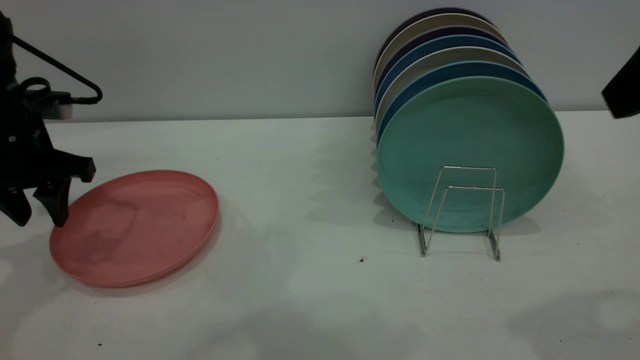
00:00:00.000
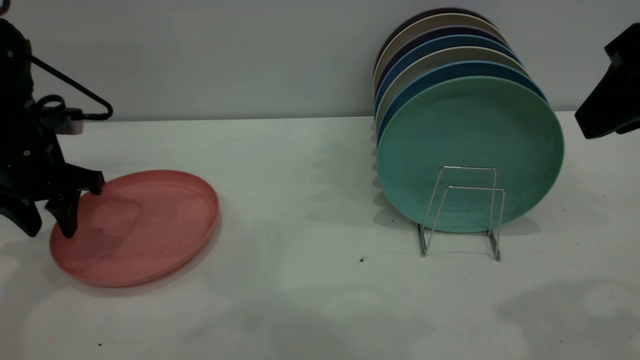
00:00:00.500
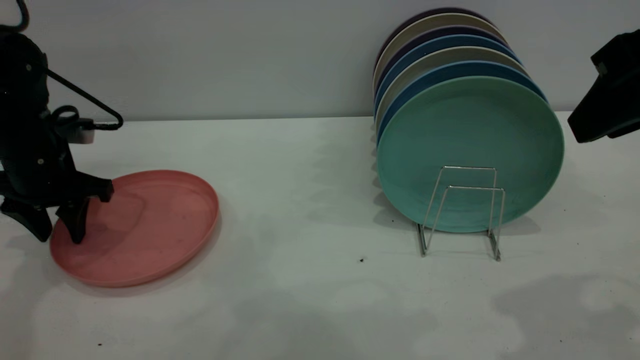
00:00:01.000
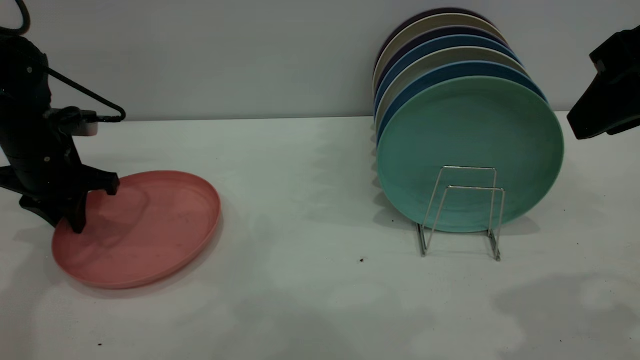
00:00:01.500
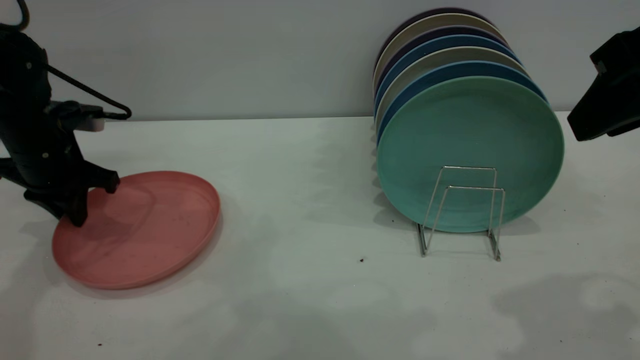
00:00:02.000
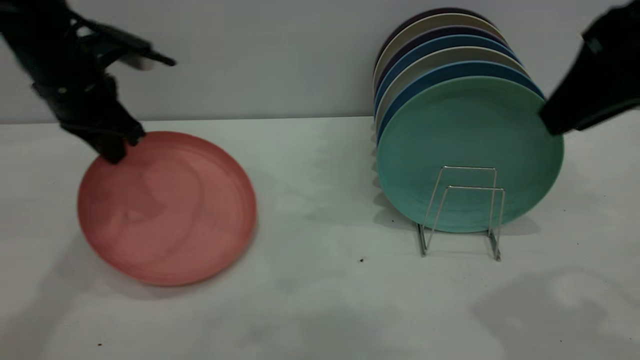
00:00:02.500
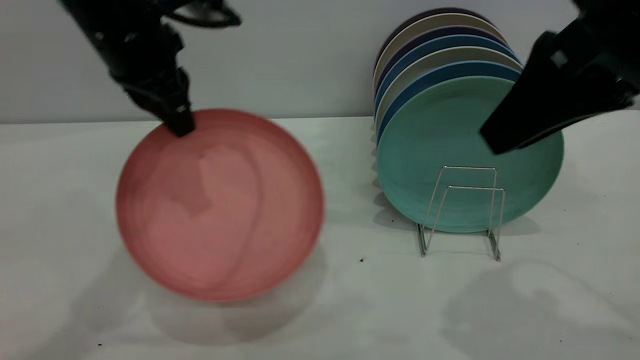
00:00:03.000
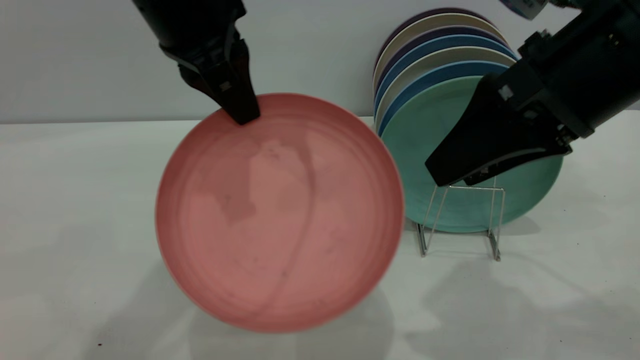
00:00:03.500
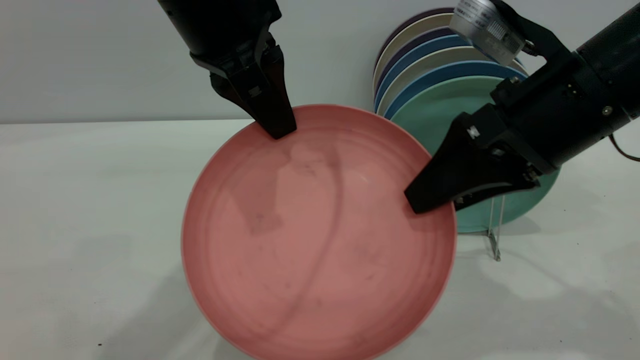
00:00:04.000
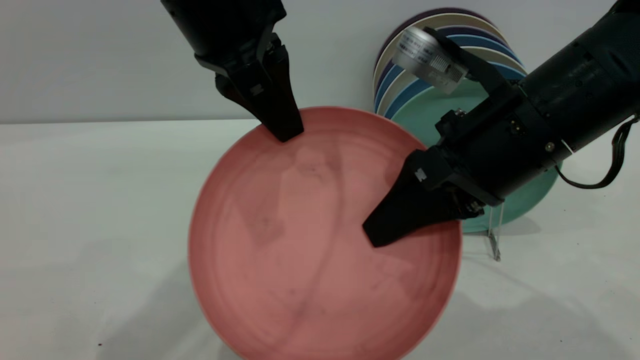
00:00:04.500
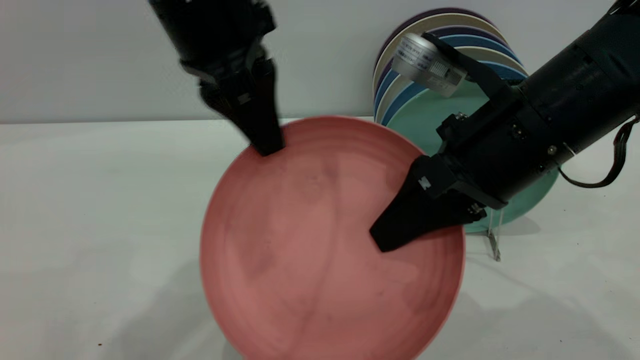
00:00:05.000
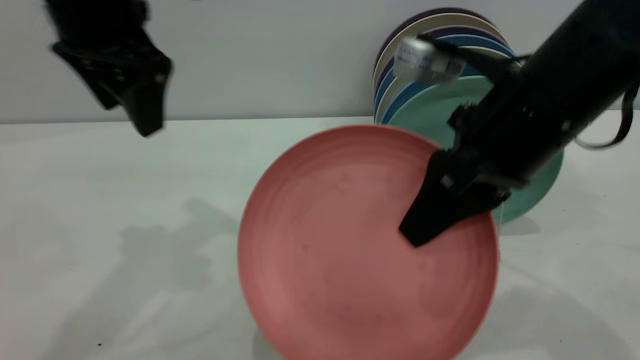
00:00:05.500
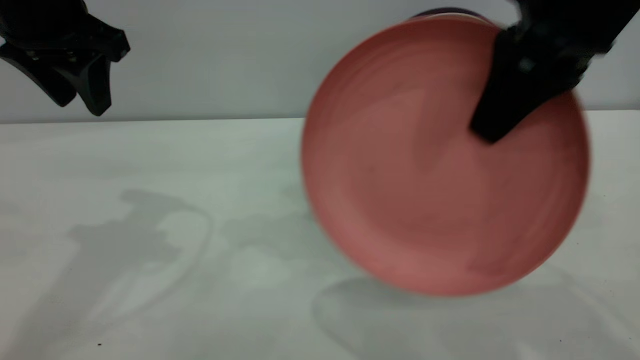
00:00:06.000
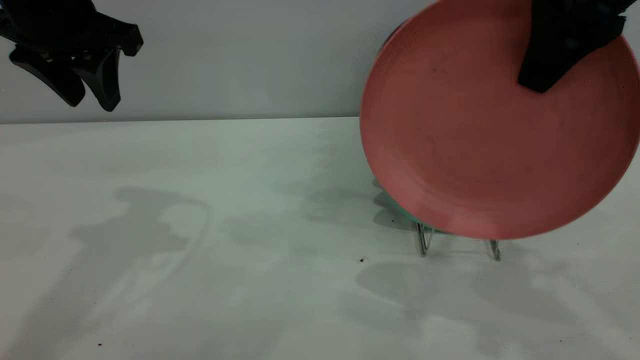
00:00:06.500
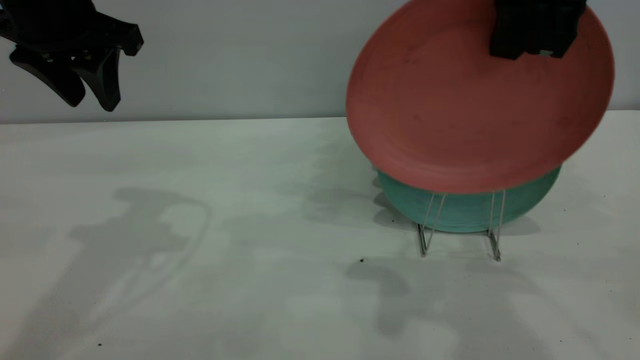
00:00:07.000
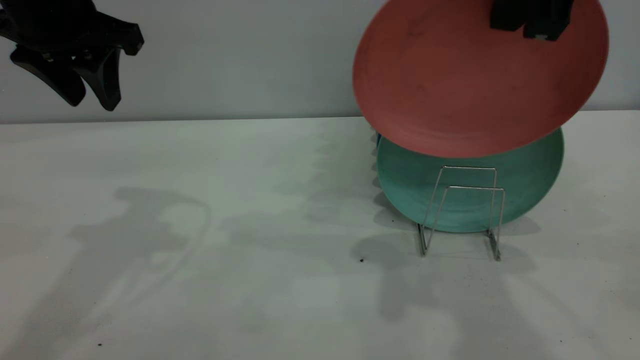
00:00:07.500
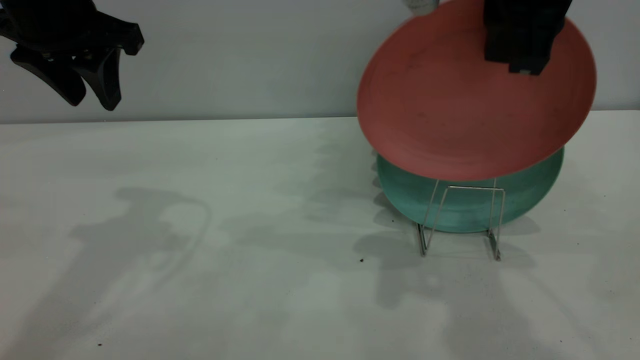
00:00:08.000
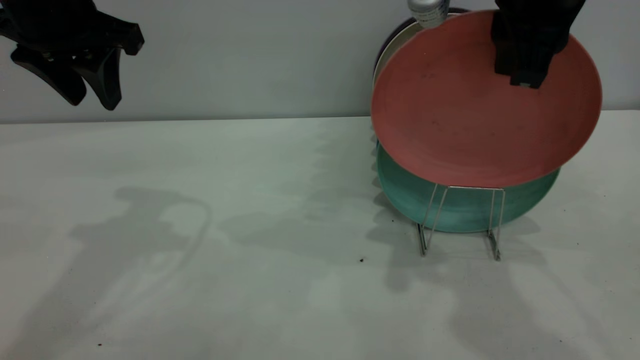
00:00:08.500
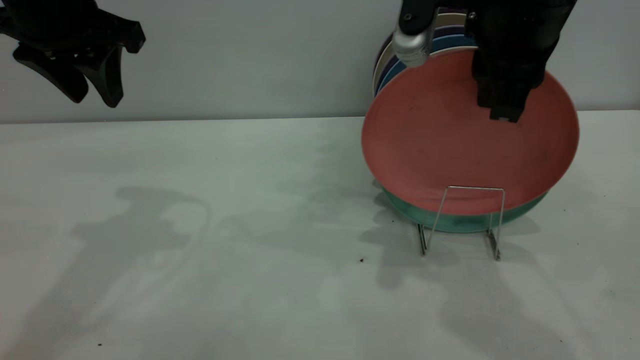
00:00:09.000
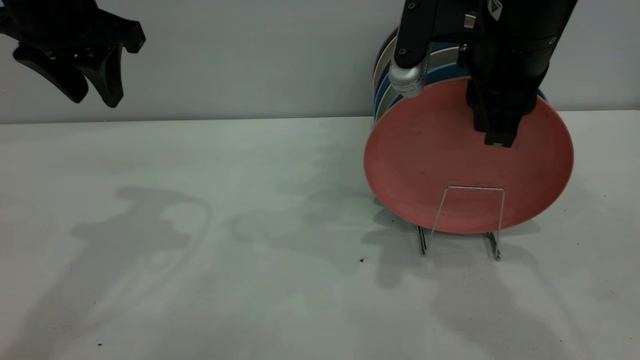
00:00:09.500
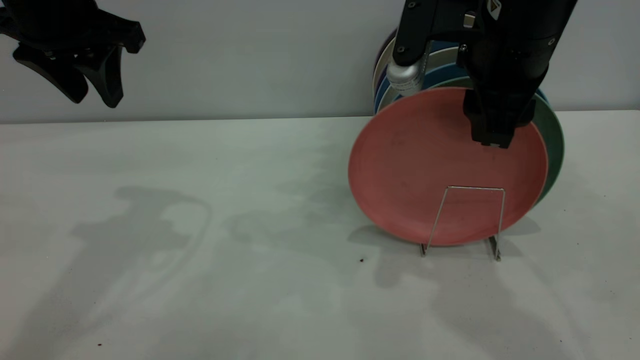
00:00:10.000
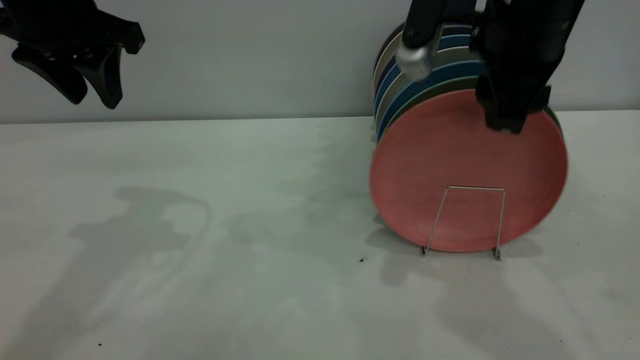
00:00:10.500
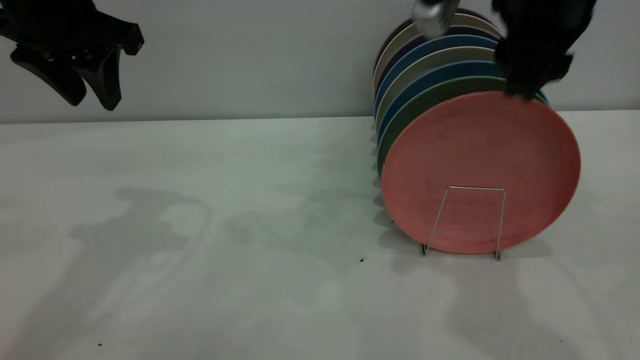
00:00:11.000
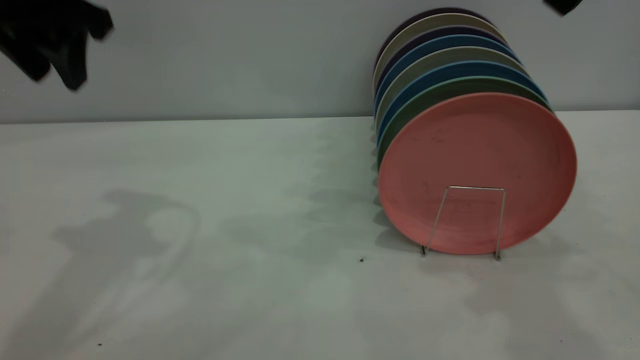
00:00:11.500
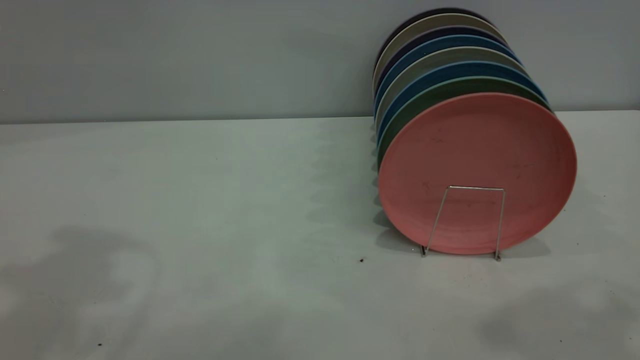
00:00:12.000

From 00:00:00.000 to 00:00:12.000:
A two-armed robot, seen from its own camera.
Task of the whole recording: put the plate on the plate rack.
Step, from 00:00:00.000 to 00:00:02.000: Pick up the plate with the left gripper.
Step, from 00:00:03.000 to 00:00:05.000: Pass the plate from the left gripper to the right gripper.
Step, from 00:00:05.500 to 00:00:11.000: Place the plate on the shelf.
From 00:00:00.000 to 00:00:02.000: The left gripper closes up.
From 00:00:02.000 to 00:00:04.000: The right gripper shifts approximately 10 cm downward and to the left, and opens up. Meanwhile the left gripper travels to the right, upward and backward by approximately 30 cm.
From 00:00:04.000 to 00:00:06.000: The left gripper shifts some 15 cm to the left, and opens its fingers, while the right gripper shifts approximately 10 cm upward, and closes up.
From 00:00:08.000 to 00:00:10.000: The right gripper moves downward, about 5 cm, and opens up.
From 00:00:10.000 to 00:00:12.000: Both grippers move upward and backward, roughly 20 cm.
